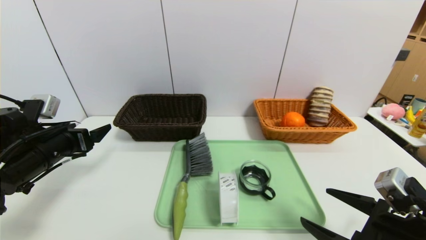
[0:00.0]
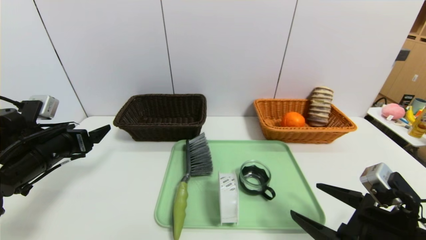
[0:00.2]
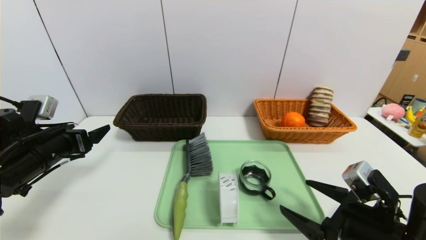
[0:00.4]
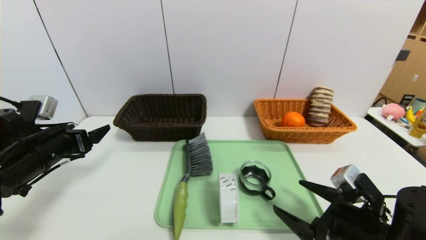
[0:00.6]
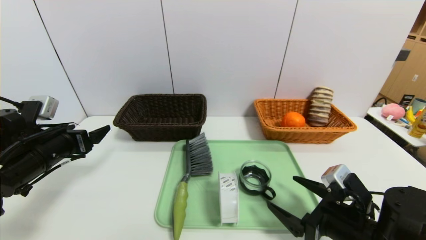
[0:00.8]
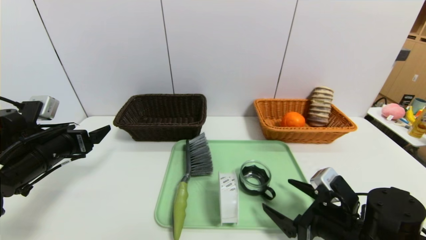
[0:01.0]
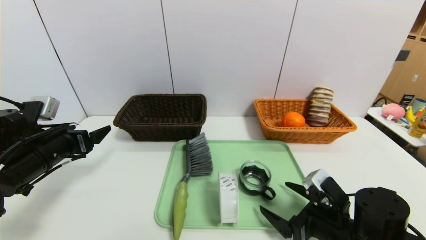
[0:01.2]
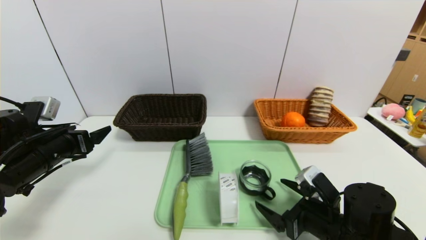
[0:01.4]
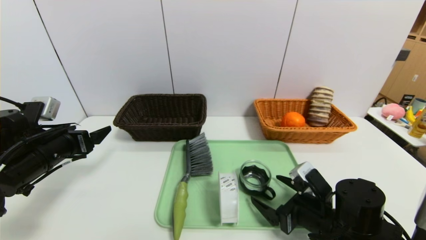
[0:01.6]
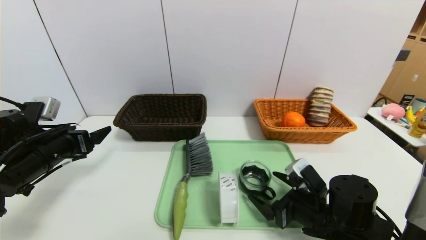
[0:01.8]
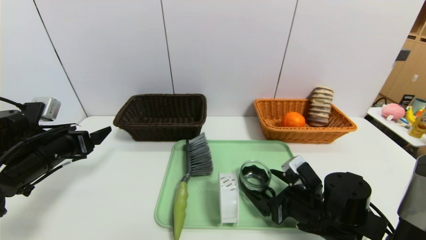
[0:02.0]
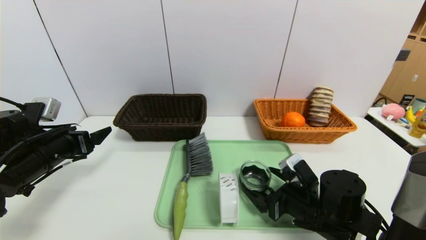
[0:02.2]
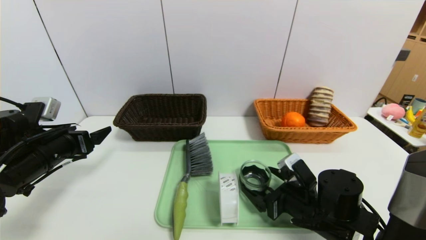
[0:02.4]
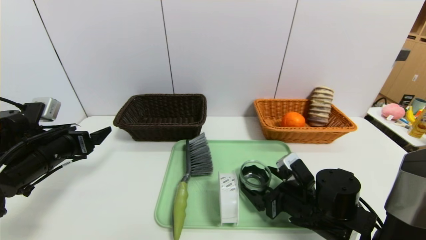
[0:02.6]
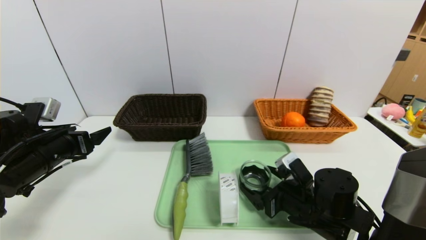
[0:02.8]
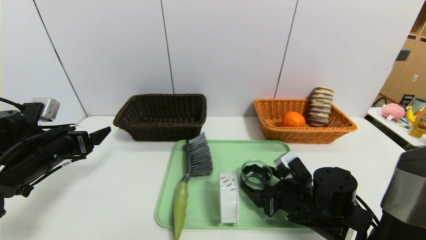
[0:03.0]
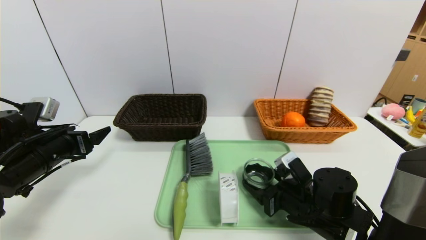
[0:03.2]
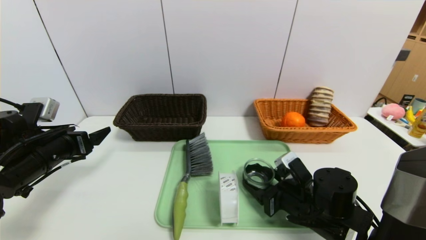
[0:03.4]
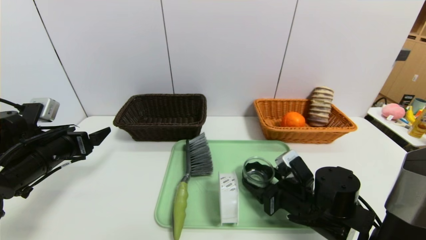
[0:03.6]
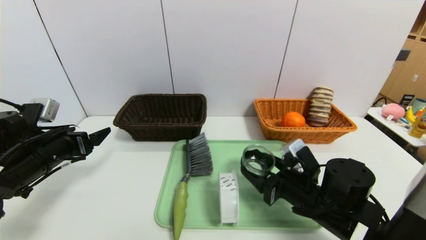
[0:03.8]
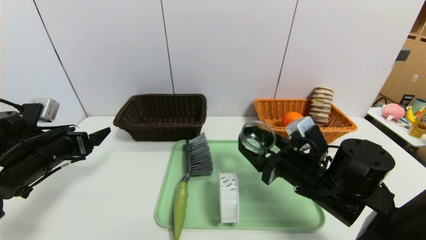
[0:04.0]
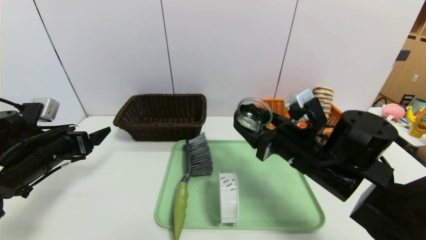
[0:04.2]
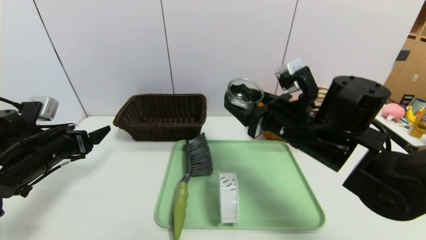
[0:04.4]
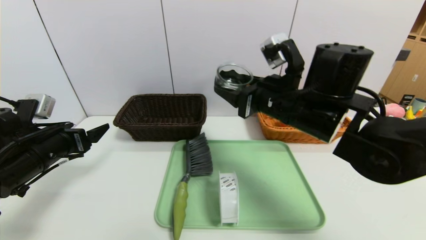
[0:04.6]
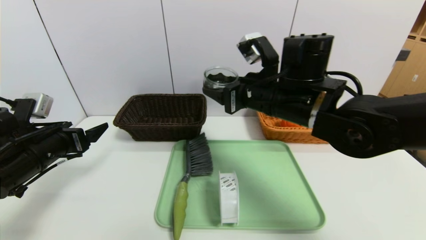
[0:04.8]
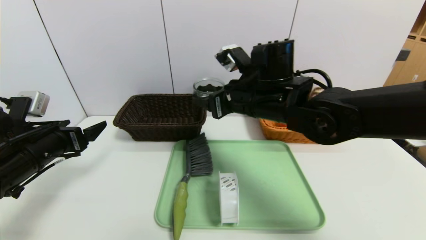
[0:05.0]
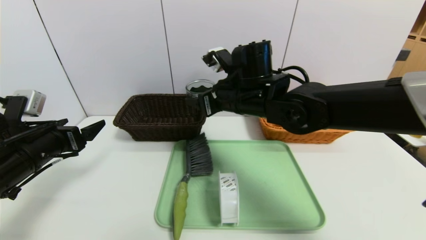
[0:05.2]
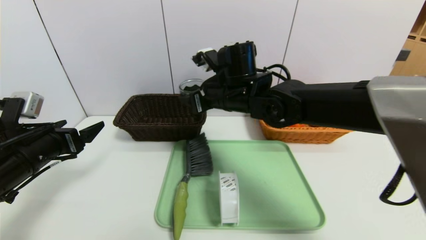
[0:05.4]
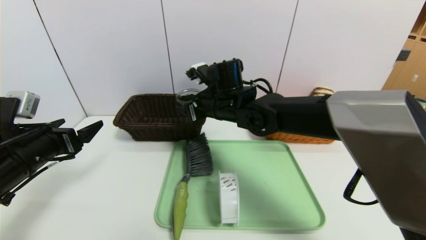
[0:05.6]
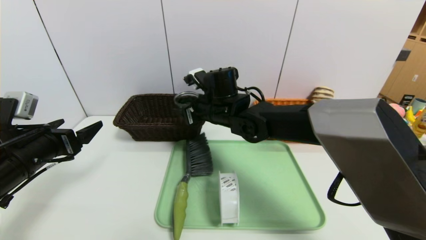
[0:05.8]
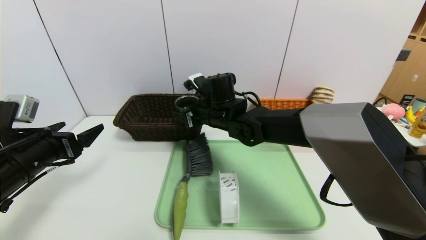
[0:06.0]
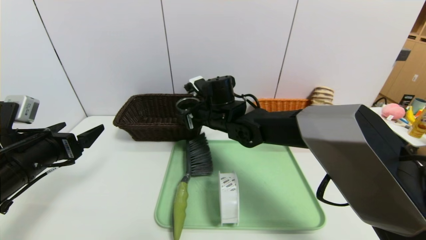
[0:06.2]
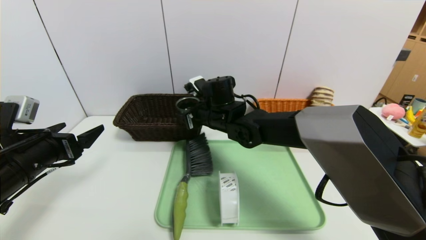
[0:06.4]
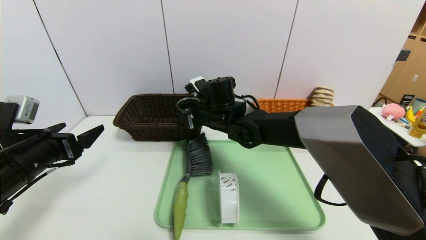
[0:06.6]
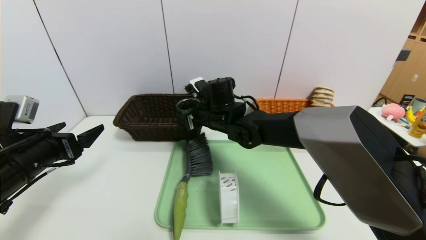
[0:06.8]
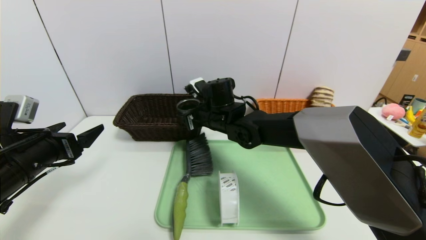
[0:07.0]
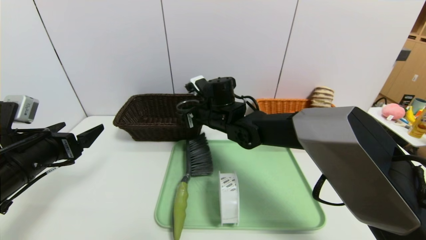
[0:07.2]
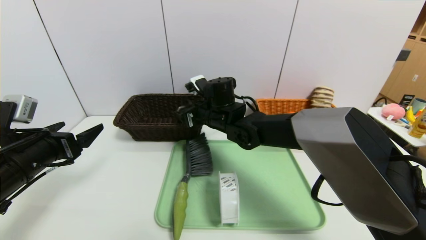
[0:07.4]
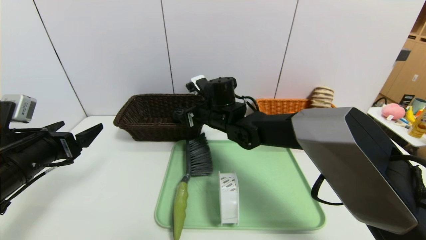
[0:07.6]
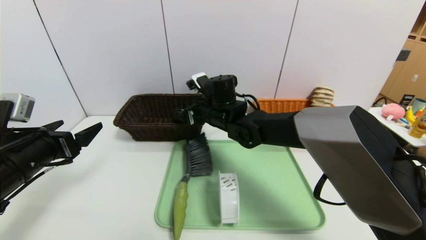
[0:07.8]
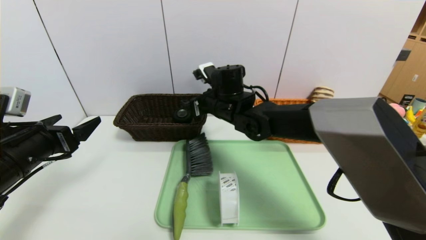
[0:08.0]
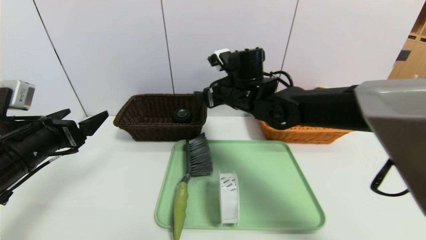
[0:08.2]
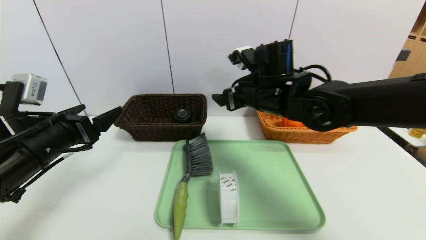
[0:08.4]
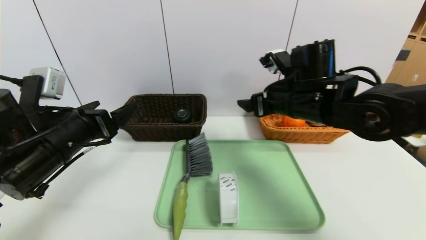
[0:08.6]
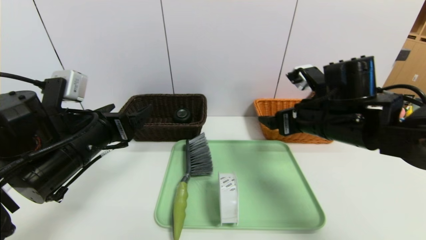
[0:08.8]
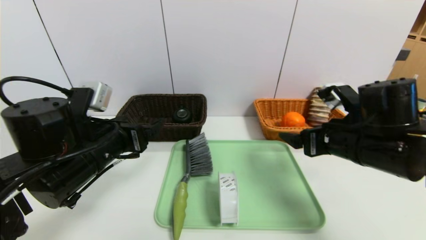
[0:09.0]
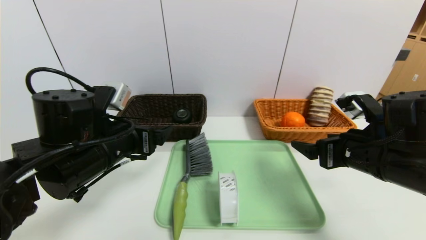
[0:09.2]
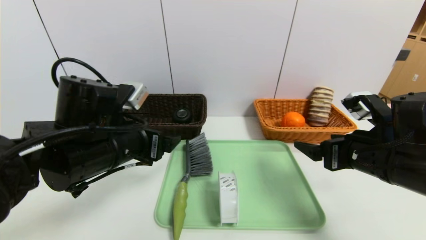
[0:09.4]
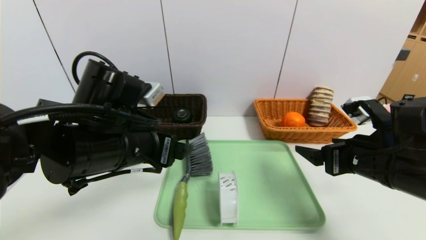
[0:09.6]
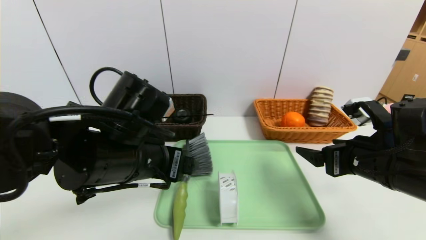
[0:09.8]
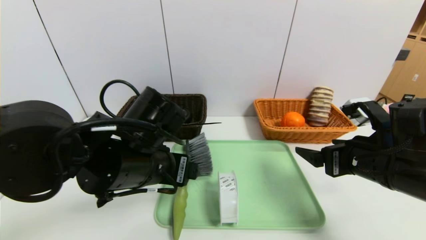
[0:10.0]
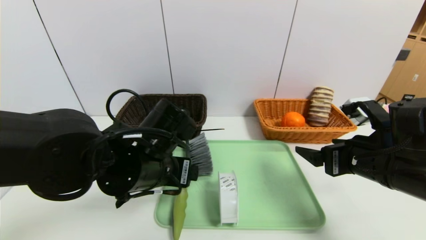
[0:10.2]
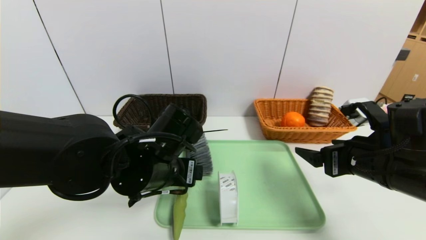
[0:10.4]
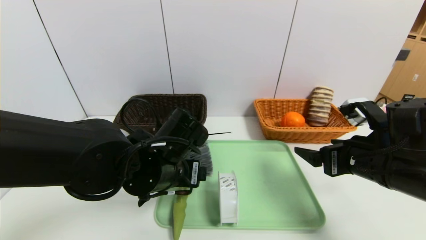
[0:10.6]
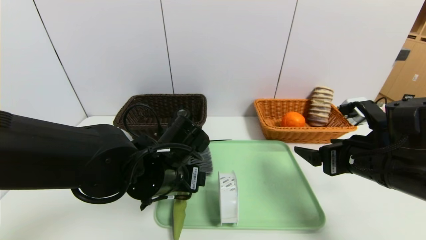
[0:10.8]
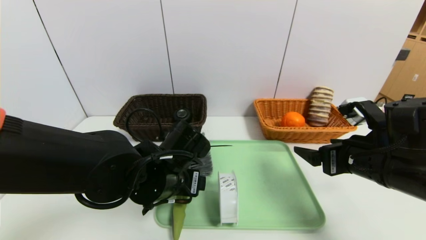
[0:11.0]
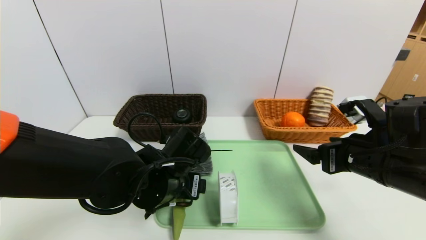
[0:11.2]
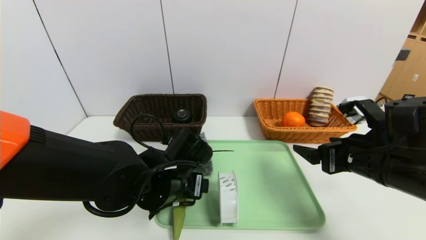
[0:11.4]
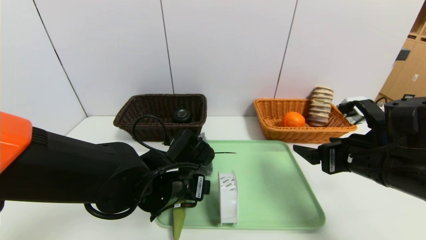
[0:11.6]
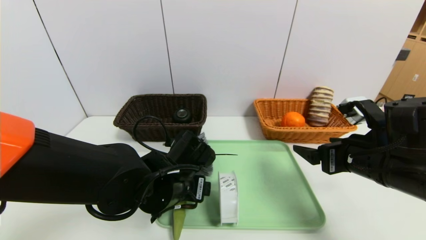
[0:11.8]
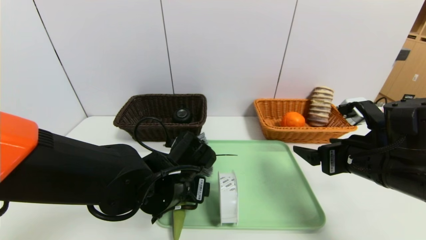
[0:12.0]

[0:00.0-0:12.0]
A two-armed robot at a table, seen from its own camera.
Task of the whole recording: place the food in the right basket with the right gripper, and place the non food items in the left basket with the left gripper.
0:00.0 to 0:01.6: The right gripper travels forward, downward and to the left by some 10 cm.
0:01.6 to 0:03.0: The grippers stay close to where they were, moving slightly.
0:03.0 to 0:04.4: The right gripper moves upward, some 15 cm.
0:04.4 to 0:06.0: The right gripper moves to the left and forward, some 20 cm.
0:06.0 to 0:07.6: The grippers move only a little.
0:07.6 to 0:09.0: The left gripper travels to the right by roughly 10 cm. The right gripper moves to the right and backward, approximately 30 cm.
0:09.0 to 0:10.4: The left gripper travels to the right by about 10 cm.
0:10.4 to 0:12.0: The left gripper is displaced downward by roughly 5 cm.

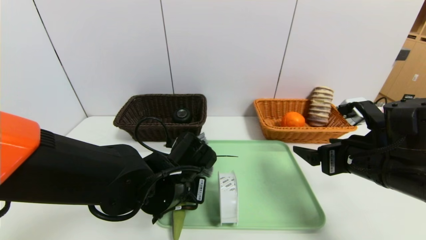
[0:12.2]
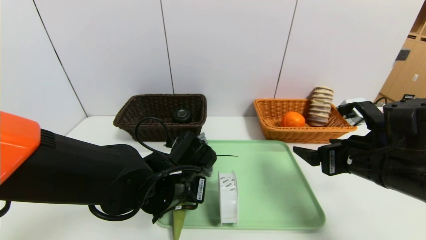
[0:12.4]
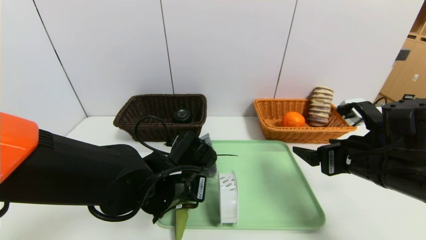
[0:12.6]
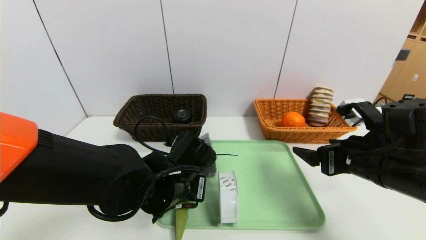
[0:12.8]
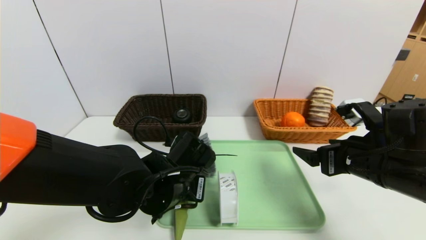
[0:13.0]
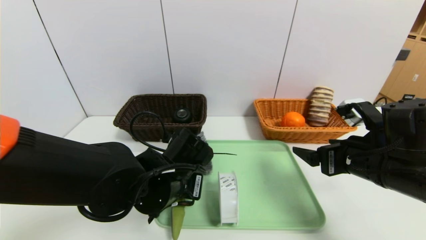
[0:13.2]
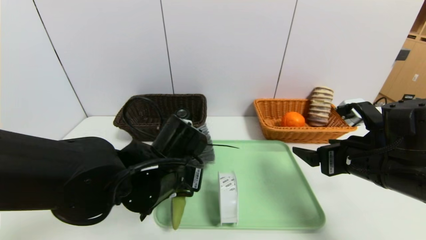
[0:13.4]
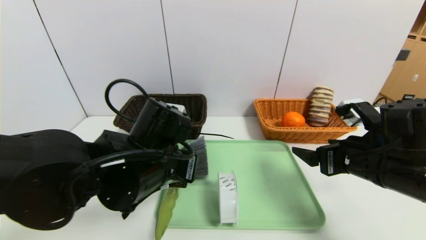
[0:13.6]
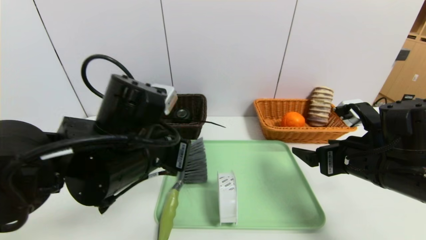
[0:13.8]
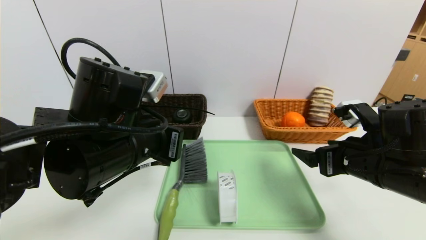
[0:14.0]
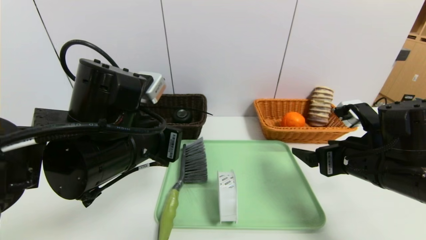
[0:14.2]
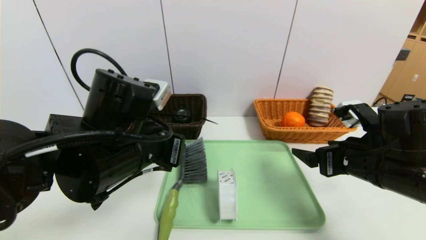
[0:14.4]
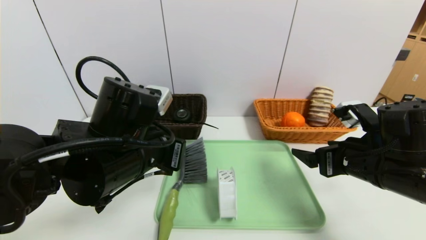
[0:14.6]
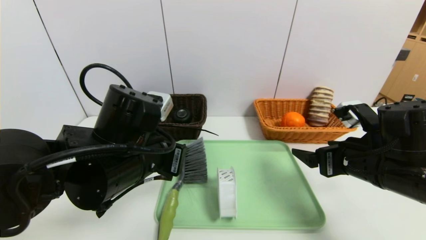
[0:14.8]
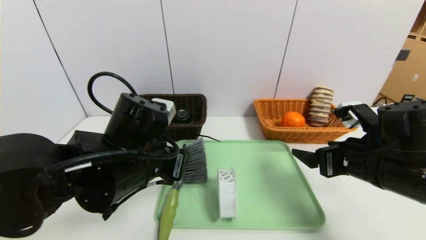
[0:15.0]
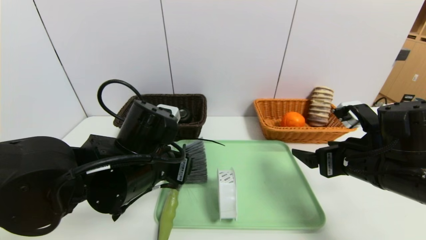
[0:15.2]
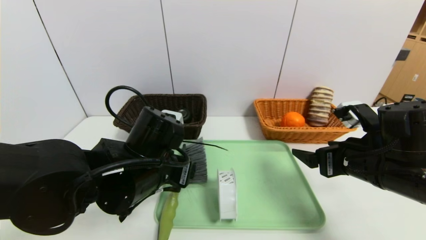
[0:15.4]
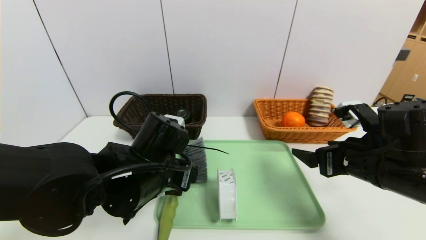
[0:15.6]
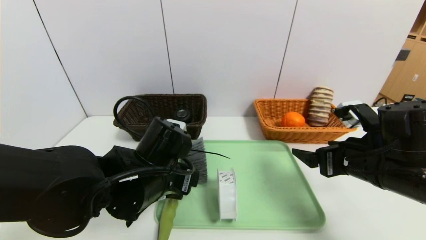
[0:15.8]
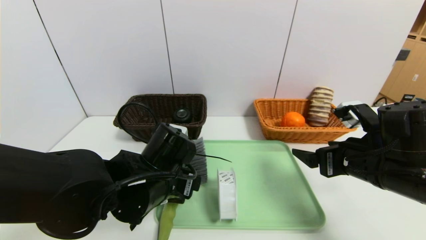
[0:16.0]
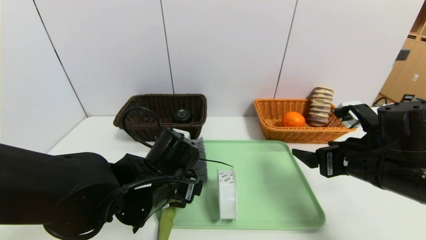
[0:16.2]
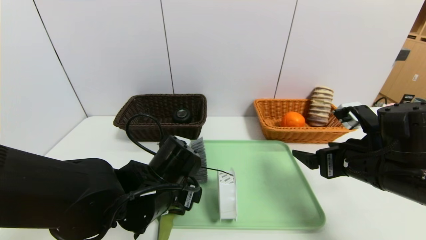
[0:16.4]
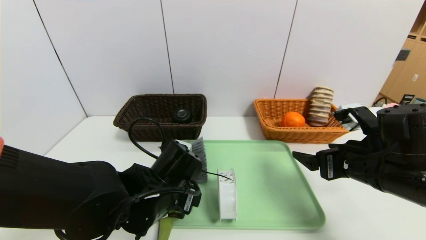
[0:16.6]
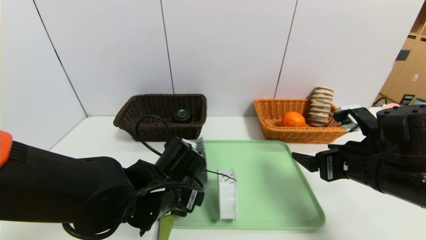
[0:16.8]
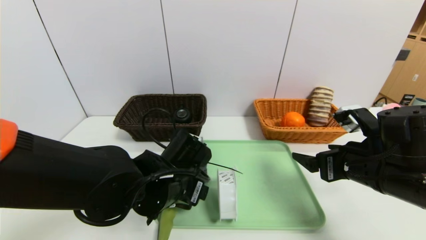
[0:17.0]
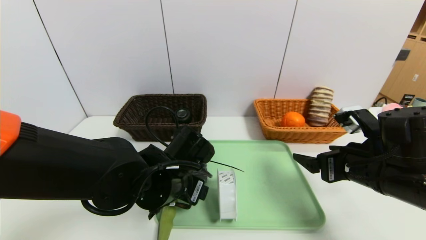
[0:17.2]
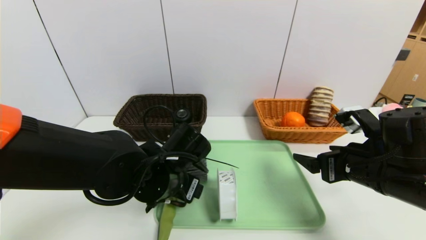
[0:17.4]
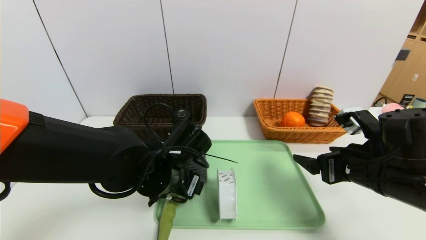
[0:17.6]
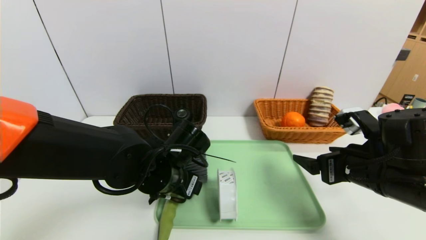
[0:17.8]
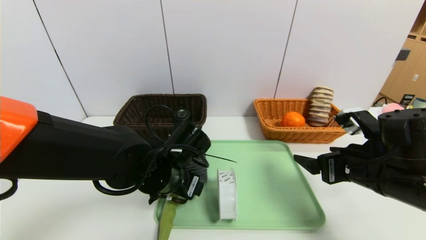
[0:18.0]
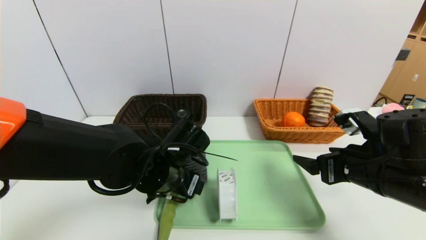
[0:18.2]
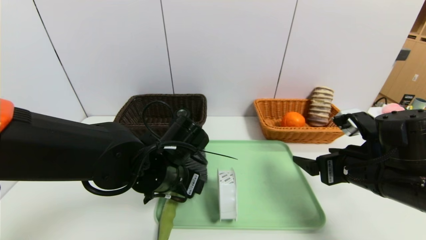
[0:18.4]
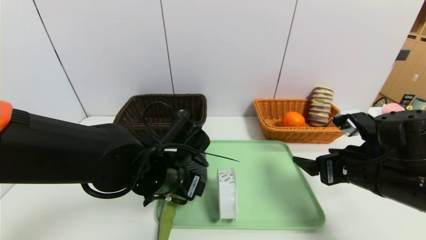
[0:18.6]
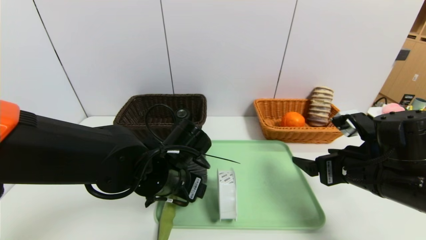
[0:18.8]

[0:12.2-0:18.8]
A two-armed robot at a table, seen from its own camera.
Task of the whole recording: place the food in the right basket with the right gripper, and place the non food items in the left basket with the left gripper.
0:12.2 to 0:13.8: The left gripper goes some 10 cm upward, and closes.
0:13.8 to 0:15.4: The left gripper moves downward, about 5 cm, and opens.
0:15.4 to 0:17.2: The left gripper changes place by some 5 cm.
0:17.2 to 0:18.8: The grippers stay close to where they were, moving slightly.
